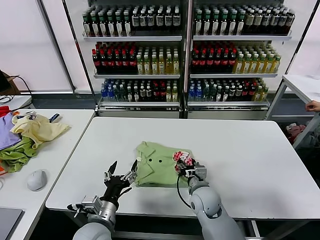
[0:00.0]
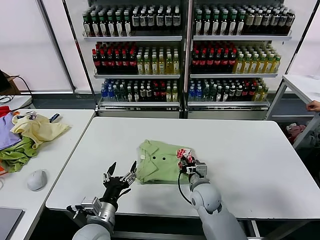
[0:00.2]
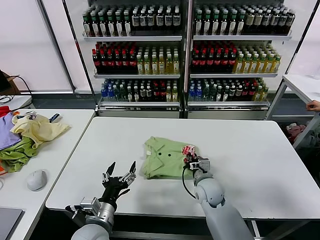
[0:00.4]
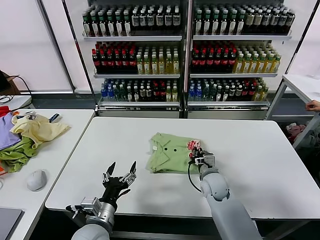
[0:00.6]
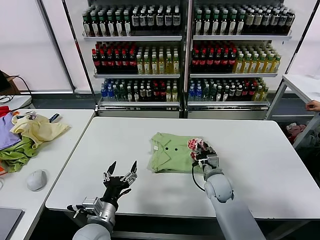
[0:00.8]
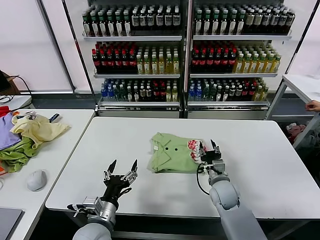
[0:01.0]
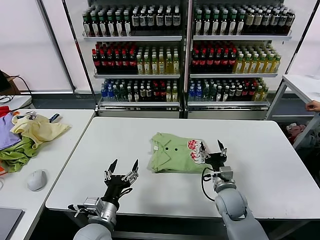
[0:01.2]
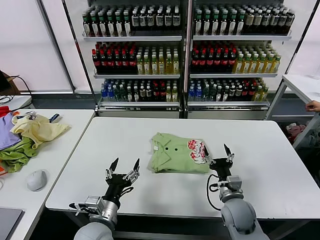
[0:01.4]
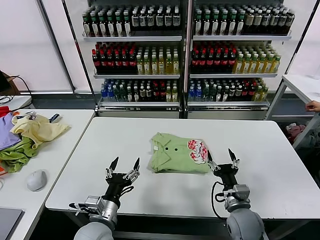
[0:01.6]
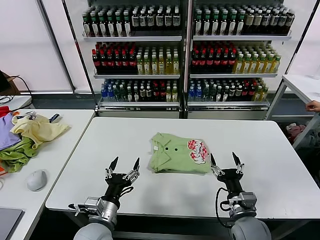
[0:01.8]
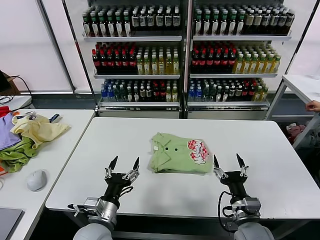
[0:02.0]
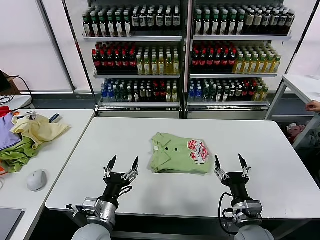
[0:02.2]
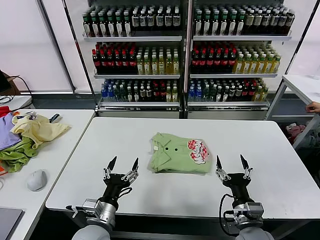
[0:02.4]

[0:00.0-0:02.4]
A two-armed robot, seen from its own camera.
Task of the whole recording: fold and organize the clothes.
0:00.0 to 0:01.2: The right gripper is displaced to the right by roughly 10 cm, and closes, then opens again.
0:01.2 to 0:02.4: The right gripper travels backward by approximately 15 cm.

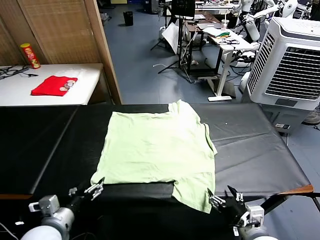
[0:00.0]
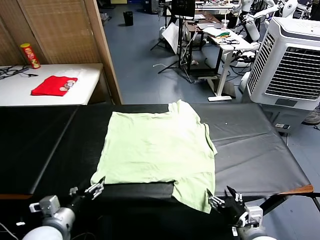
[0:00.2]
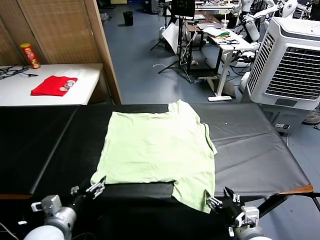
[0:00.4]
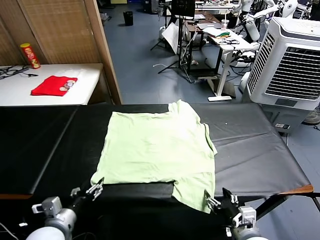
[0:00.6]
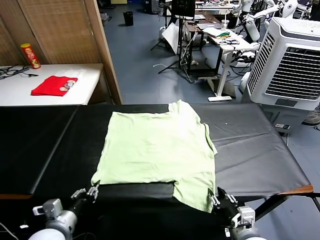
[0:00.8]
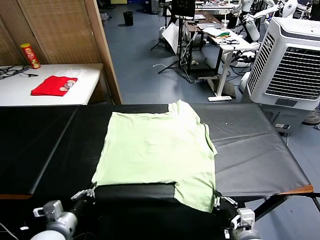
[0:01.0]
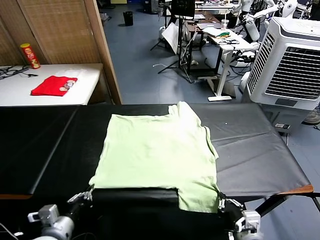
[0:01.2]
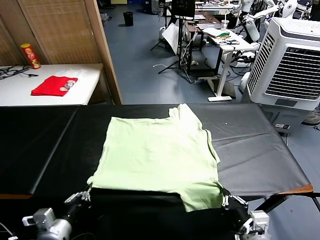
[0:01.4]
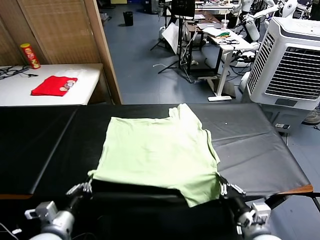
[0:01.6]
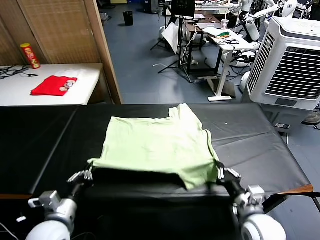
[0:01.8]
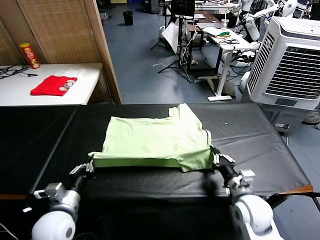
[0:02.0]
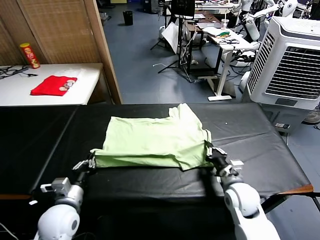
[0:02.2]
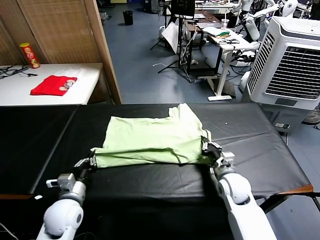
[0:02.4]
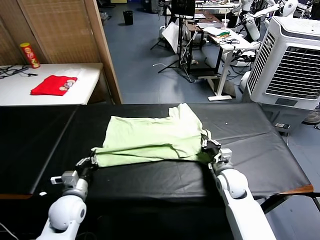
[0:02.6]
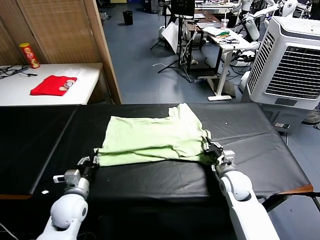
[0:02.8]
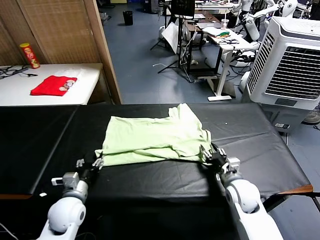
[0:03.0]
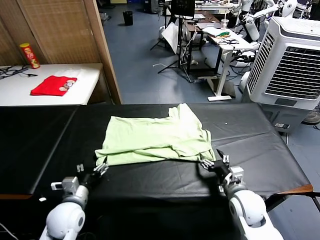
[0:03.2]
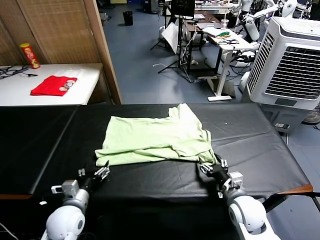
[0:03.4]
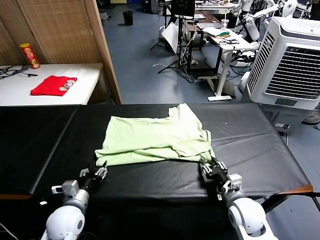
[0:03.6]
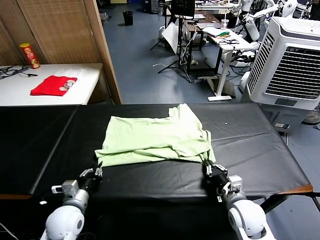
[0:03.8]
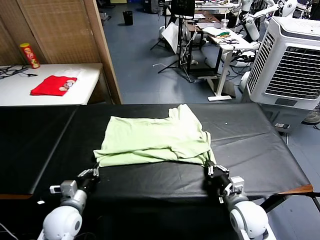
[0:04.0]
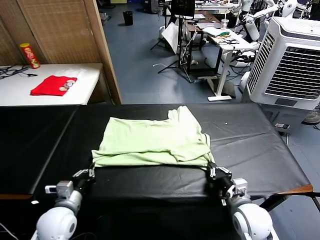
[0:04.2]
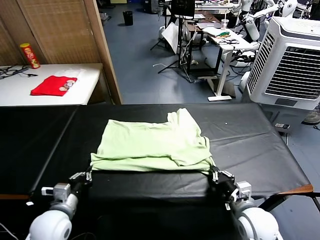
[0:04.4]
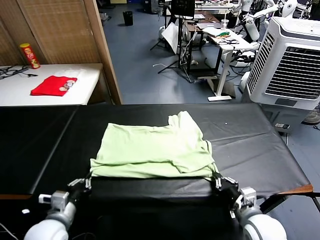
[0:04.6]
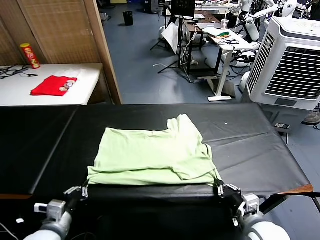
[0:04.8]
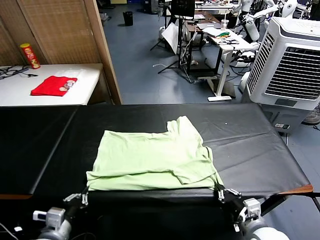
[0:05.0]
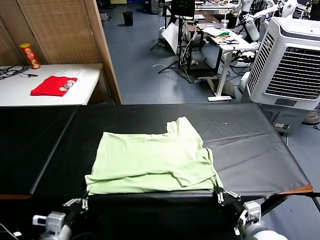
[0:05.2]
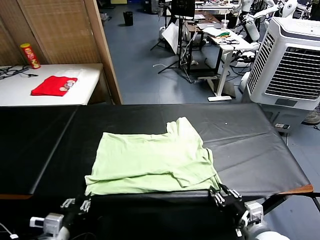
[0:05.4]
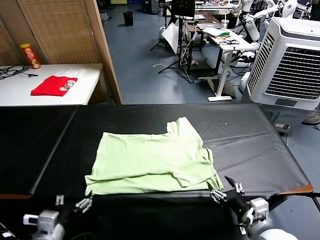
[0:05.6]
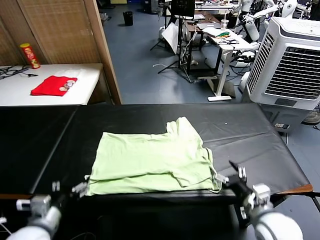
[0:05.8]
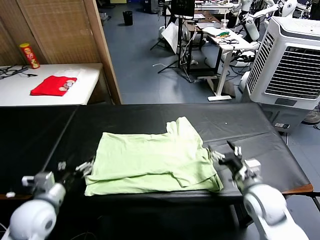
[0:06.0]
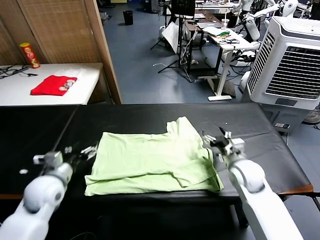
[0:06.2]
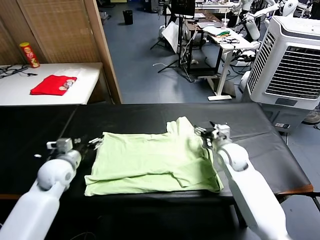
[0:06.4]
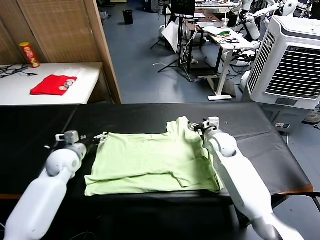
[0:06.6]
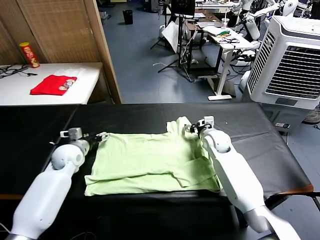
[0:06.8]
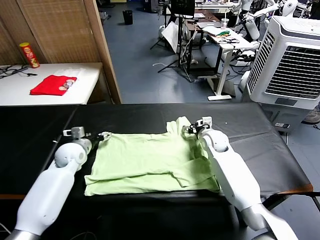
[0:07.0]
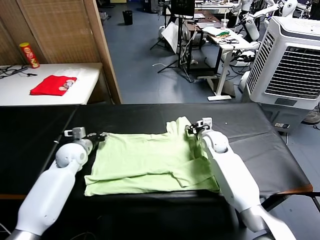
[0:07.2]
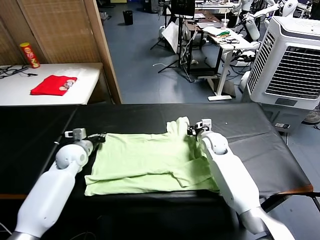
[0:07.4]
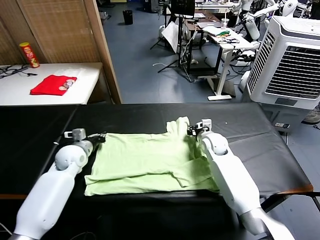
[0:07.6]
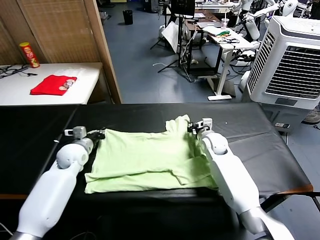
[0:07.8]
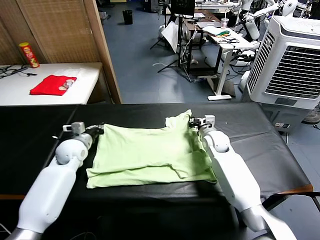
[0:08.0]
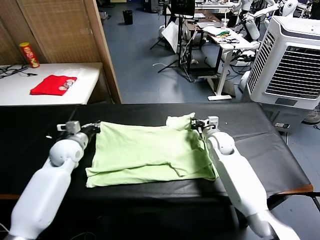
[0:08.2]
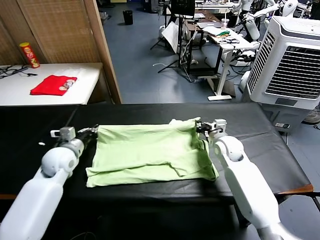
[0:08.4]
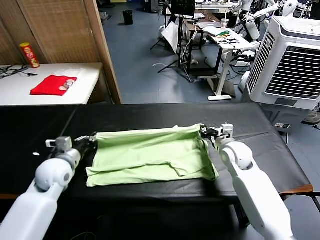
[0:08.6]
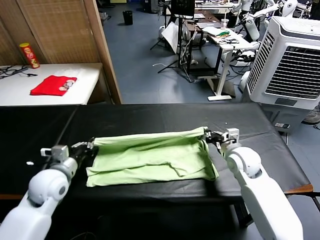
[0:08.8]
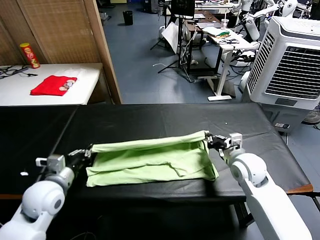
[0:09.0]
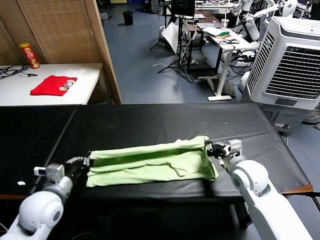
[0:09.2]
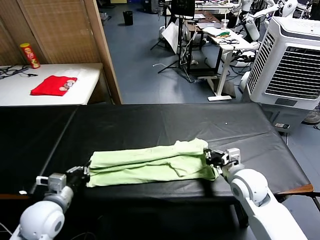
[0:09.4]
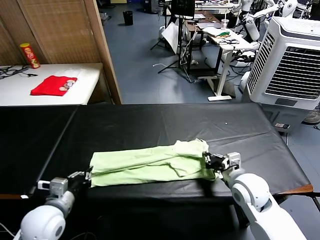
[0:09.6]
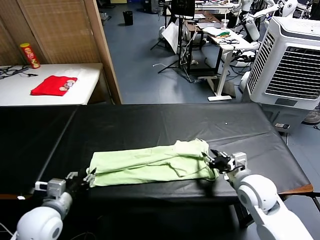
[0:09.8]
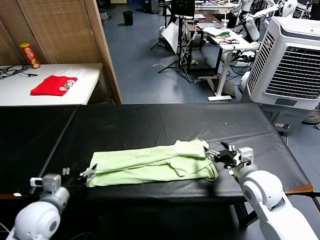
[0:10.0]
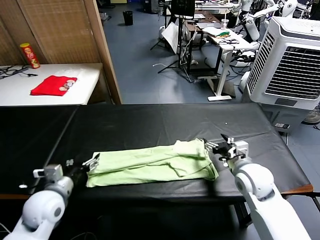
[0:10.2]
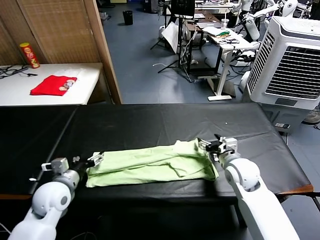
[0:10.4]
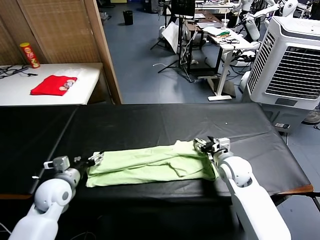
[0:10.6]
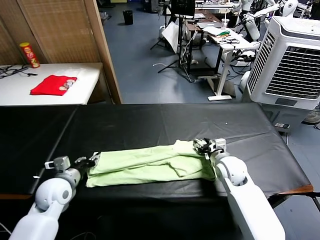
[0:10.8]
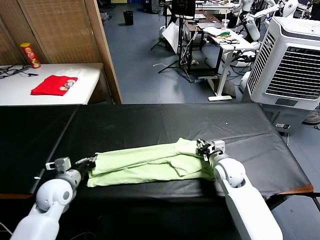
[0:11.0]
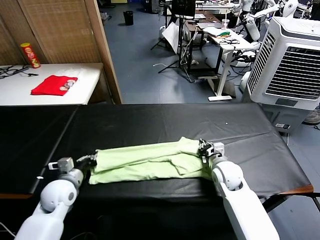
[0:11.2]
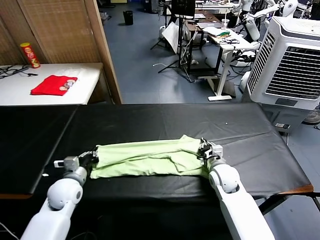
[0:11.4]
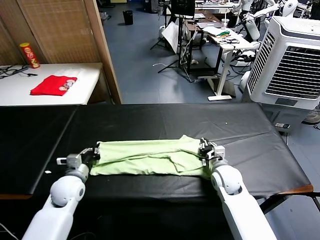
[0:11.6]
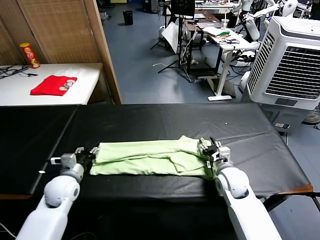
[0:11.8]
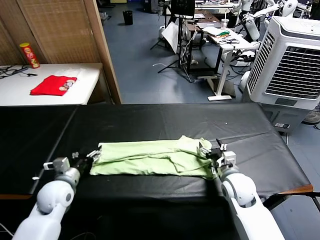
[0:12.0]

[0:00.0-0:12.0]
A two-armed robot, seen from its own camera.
Task of the whole recording: fold and organize the clothes.
Step, 0:00.0 to 0:01.0: use both grippers simultaneously to clamp the lower edge of the clothing fabric.
Step, 0:01.2 to 0:02.8: use both grippers to drag the lower edge of the fabric forward and fold it over the upper edge.
Step, 0:03.0 to 0:05.4: Drag the clothes downward with both gripper.
Step, 0:05.8 to 0:07.4: use both grippers simultaneously to clamp the upper edge of the clothing fabric.
Step, 0:07.6 to 0:09.8: use both grippers to drag the upper edge of the fabric backward and fold it over the lower edge.
0:01.6 to 0:03.0: The right gripper travels forward by approximately 10 cm, and opens up; the left gripper heads forward and downward, covering about 10 cm, and opens its fingers.
0:03.0 to 0:04.4: The left gripper moves approximately 5 cm, and closes. Meanwhile the right gripper travels backward by about 10 cm, and closes up.
0:04.4 to 0:06.0: The left gripper shifts some 5 cm upward, goes backward and returns, roughly 10 cm each way, and opens; the right gripper goes approximately 15 cm forward, and opens up.
0:06.0 to 0:07.6: Both grippers travel together forward, approximately 20 cm. The left gripper closes. The right gripper closes up.
0:07.6 to 0:09.0: The right gripper moves backward, upward and to the right, roughly 20 cm; the left gripper shifts about 15 cm backward.
0:09.0 to 0:10.4: The left gripper goes backward and returns, some 5 cm each way, and opens up. The right gripper moves about 5 cm backward and comes back, and opens up.
0:10.4 to 0:12.0: The right gripper moves about 5 cm, and closes, then opens again; the left gripper closes and opens again.

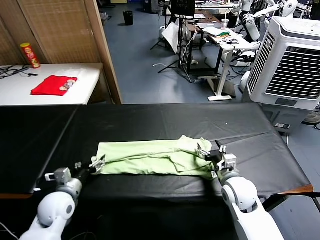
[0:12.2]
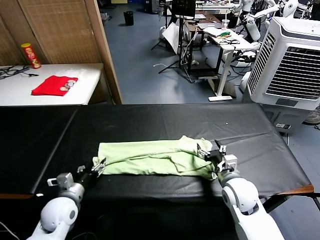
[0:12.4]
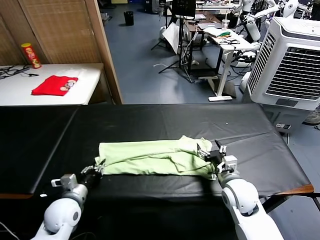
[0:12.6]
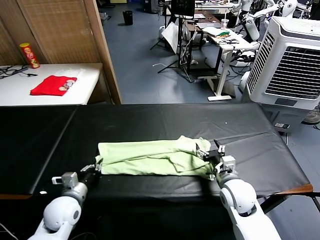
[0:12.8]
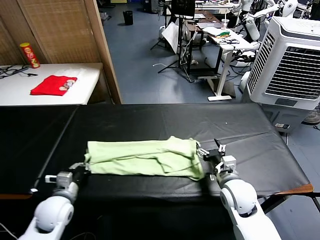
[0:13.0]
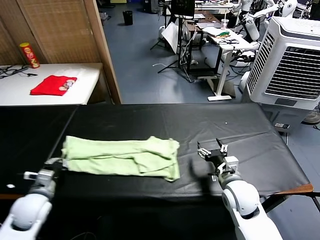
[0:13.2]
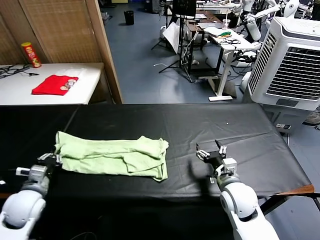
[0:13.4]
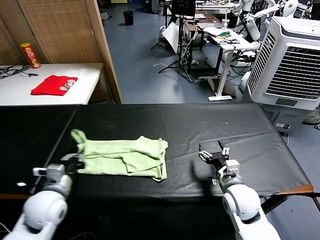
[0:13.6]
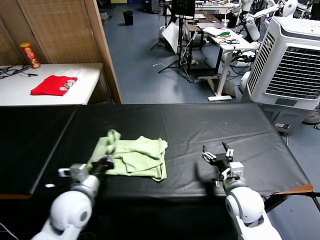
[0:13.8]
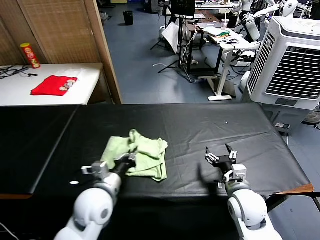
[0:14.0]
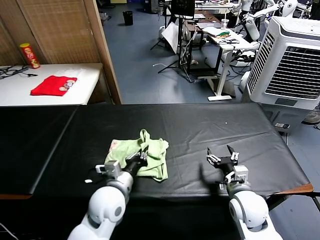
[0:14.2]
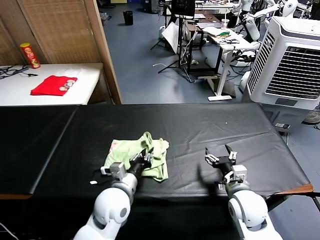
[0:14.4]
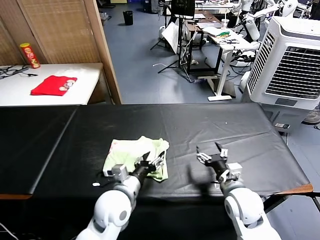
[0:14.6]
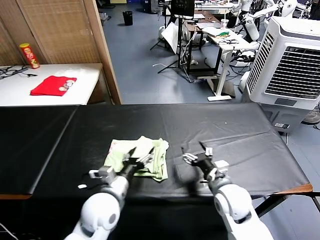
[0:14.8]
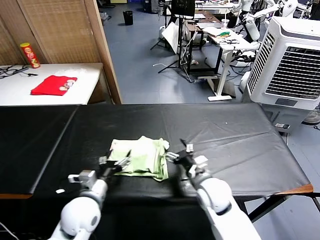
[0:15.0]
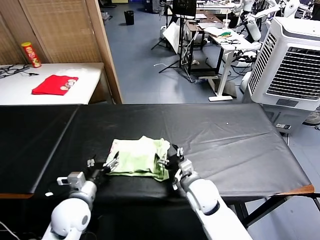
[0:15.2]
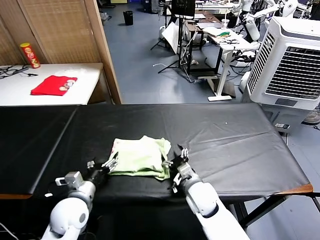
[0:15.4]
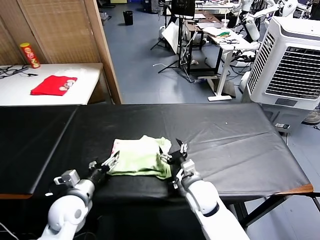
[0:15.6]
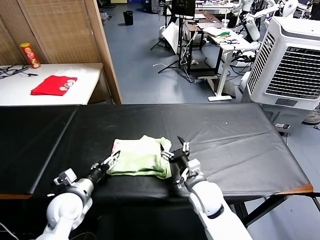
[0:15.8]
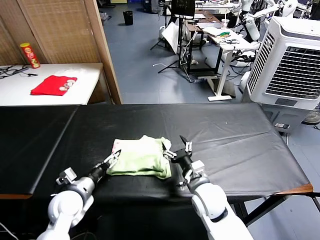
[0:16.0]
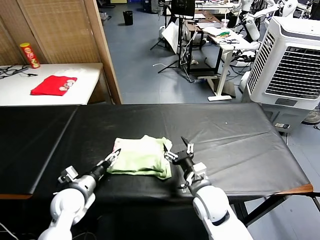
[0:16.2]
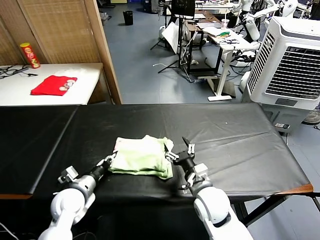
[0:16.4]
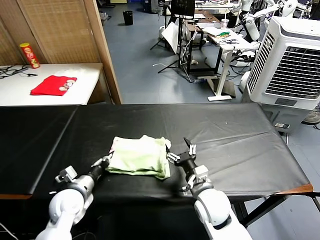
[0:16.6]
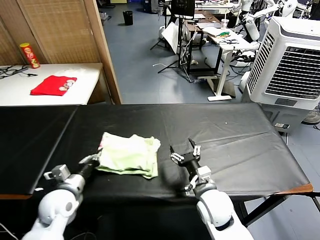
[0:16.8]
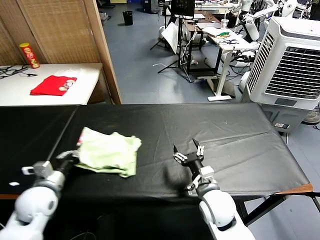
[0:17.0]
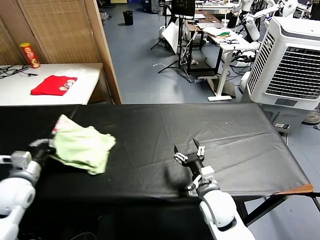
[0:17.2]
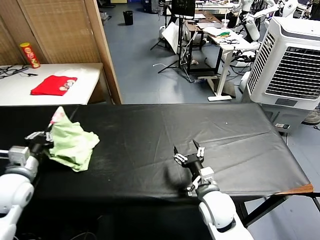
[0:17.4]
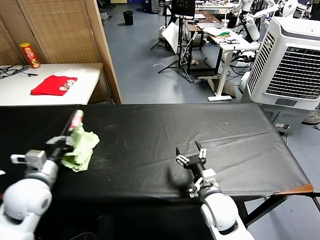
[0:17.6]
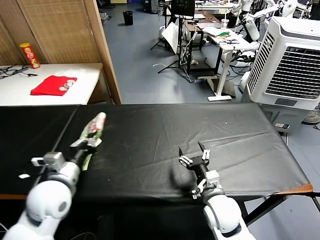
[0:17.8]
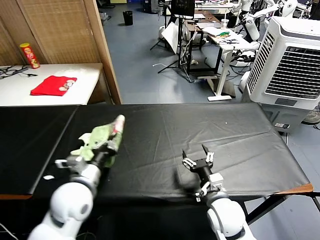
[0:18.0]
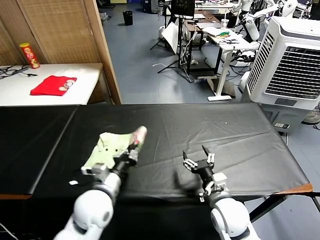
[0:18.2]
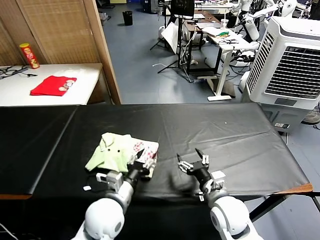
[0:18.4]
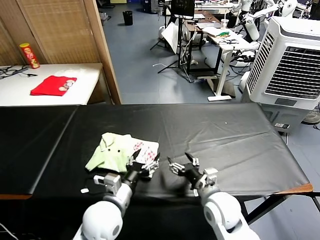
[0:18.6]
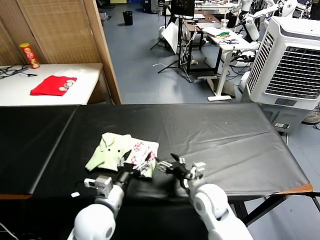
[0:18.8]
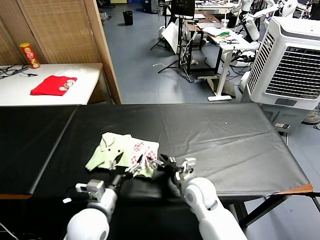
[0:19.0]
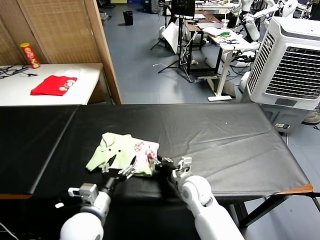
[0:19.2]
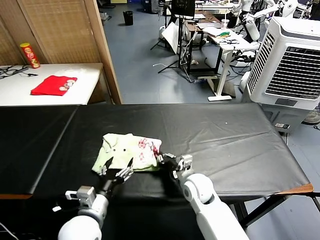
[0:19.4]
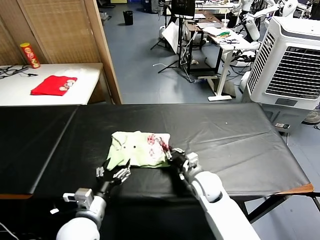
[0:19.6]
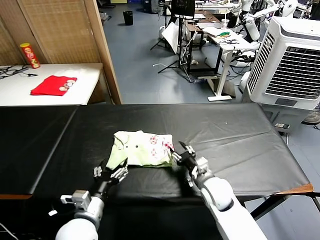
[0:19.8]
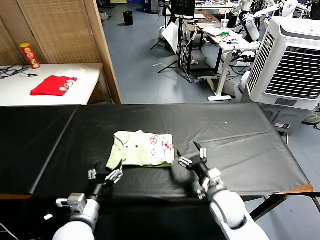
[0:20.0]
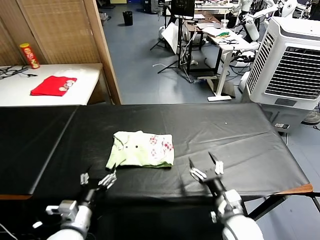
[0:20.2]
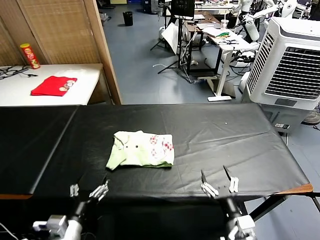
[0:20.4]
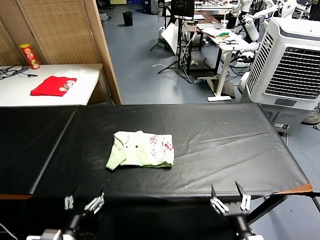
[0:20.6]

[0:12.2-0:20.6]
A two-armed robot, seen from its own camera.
Task of the whole recording: fold and organize the clothes.
Step, 0:12.8 to 0:14.6: use the left gripper to drag the left edge of the fabric to the left and folds it over the right edge.
Step, 0:14.8 to 0:18.4: Flip the folded clothes over with left gripper.
Step, 0:18.8 to 0:19.8: Drag the clothes to the center of the table.
0:12.2 to 0:13.6: The left gripper is displaced upward by approximately 5 cm, moves about 5 cm to the left and comes back, and closes up.
0:13.6 to 0:15.0: The right gripper is displaced to the left by some 10 cm. The left gripper heads to the right, covering approximately 10 cm, and opens its fingers.
0:15.0 to 0:16.4: The left gripper travels to the left by some 10 cm, and closes.
0:16.4 to 0:17.8: The left gripper is displaced upward by some 10 cm.
0:17.8 to 0:19.2: The left gripper goes roughly 15 cm to the right, downward and backward, and opens up. Meanwhile the right gripper travels forward and to the left by some 10 cm, and closes.
0:19.2 to 0:20.6: The left gripper heads backward and to the left, covering about 10 cm. The right gripper goes approximately 25 cm backward and to the right, and opens its fingers.
